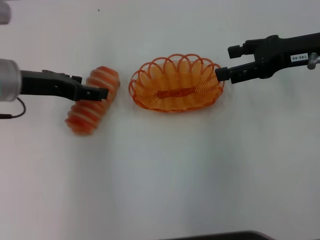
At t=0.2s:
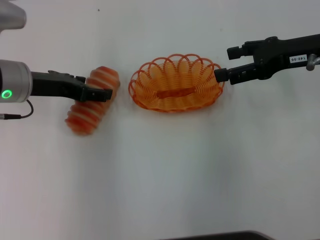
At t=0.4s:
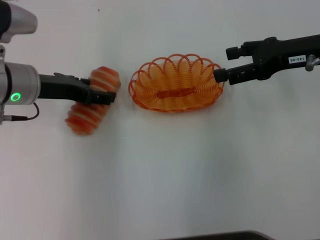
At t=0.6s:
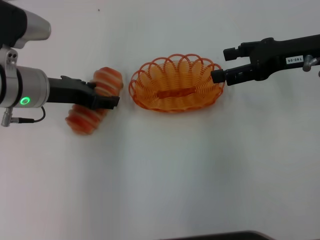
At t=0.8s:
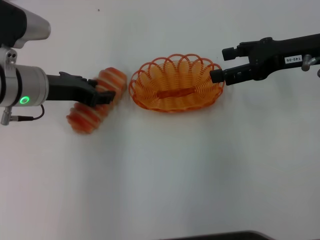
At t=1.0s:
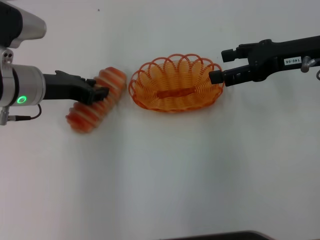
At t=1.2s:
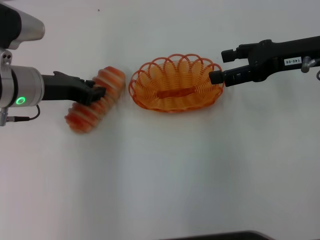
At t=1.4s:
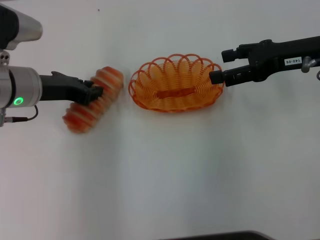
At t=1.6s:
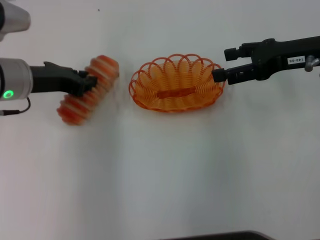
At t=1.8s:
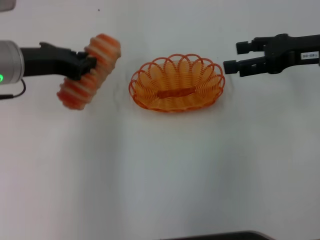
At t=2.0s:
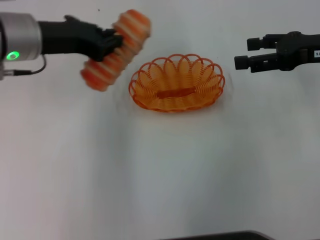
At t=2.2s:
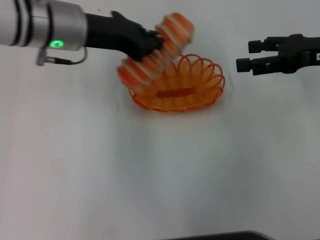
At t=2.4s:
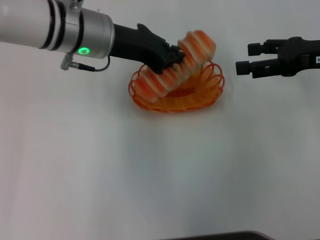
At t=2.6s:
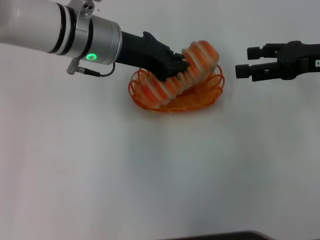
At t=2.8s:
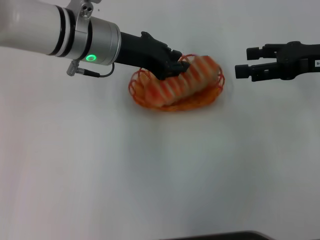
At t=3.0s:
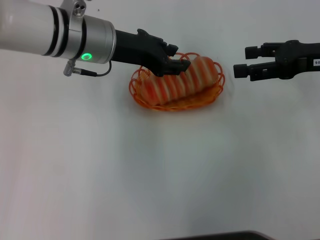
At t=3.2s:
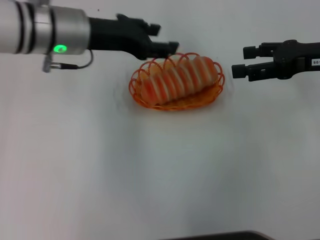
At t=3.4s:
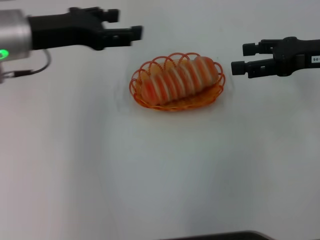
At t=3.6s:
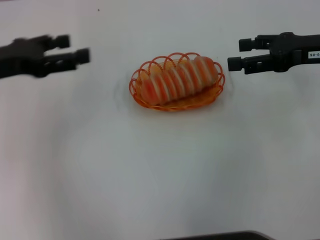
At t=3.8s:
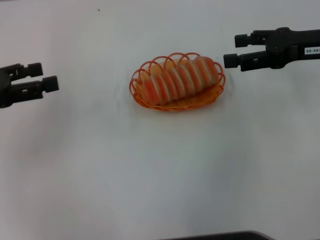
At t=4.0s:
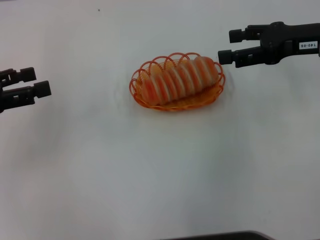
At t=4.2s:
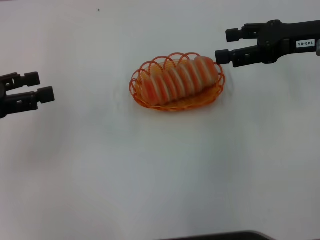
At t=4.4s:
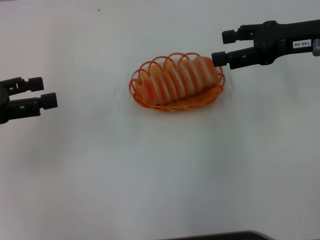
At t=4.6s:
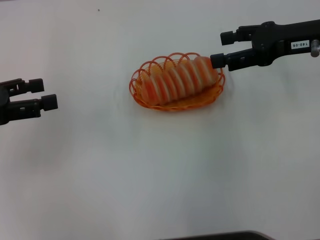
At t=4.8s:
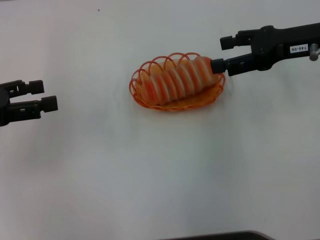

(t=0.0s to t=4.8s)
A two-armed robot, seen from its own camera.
Step, t=0.0s - t=1.8s: Pick up the long bread with the left gripper.
Step, t=2.0s - t=3.0s: Place the long bread into the basket with the left gripper.
t=0.0s - t=1.6s: The left gripper closes up.
t=1.6s - t=3.2s: The left gripper shifts approximately 5 cm to the right.
t=3.2s - t=4.8s: The left gripper shifts about 20 cm to the left and backward, and opens up.

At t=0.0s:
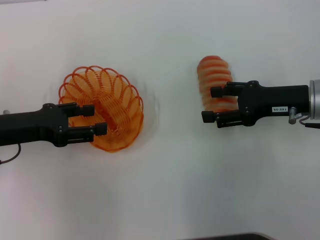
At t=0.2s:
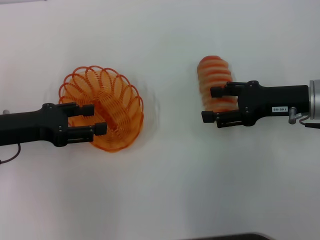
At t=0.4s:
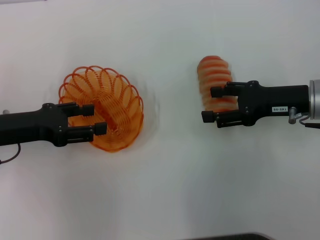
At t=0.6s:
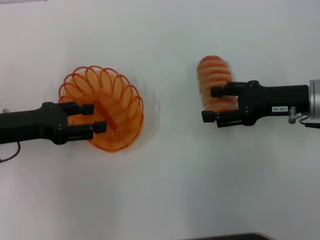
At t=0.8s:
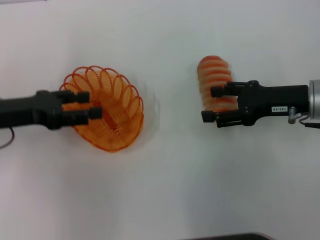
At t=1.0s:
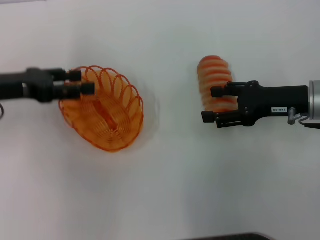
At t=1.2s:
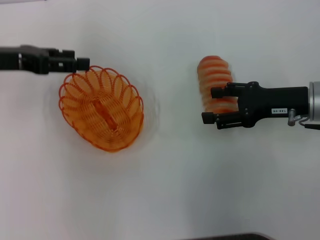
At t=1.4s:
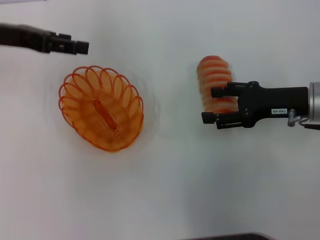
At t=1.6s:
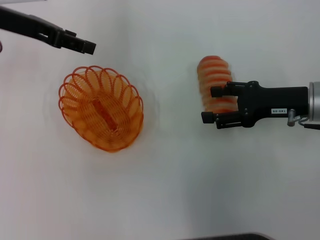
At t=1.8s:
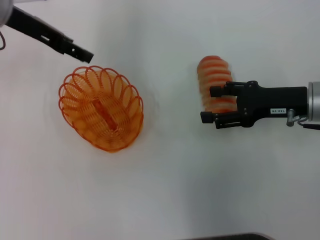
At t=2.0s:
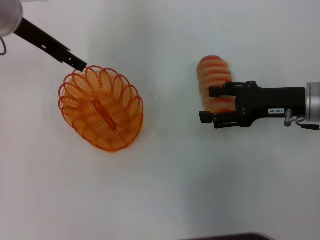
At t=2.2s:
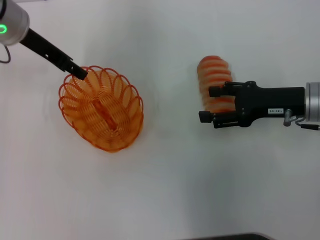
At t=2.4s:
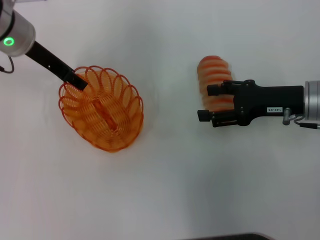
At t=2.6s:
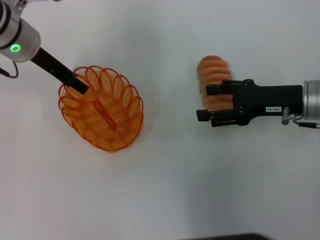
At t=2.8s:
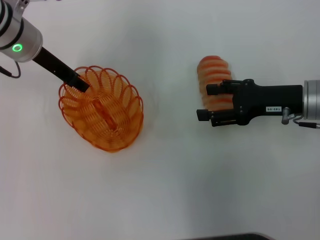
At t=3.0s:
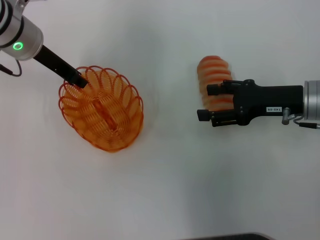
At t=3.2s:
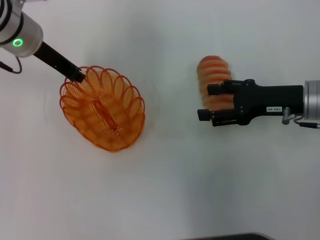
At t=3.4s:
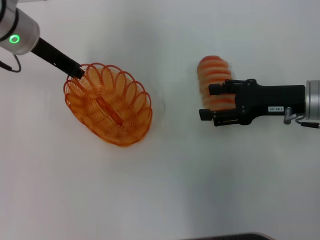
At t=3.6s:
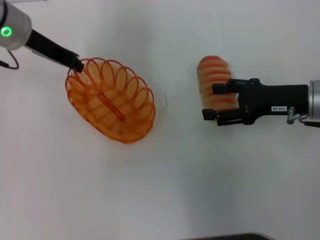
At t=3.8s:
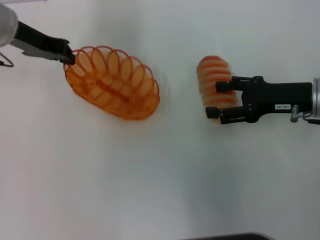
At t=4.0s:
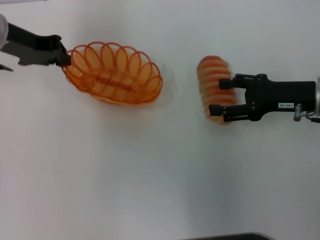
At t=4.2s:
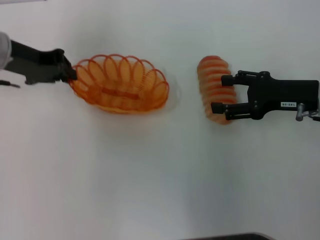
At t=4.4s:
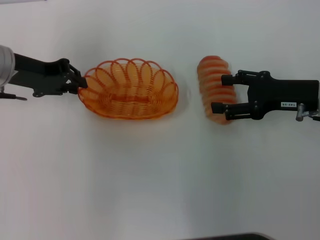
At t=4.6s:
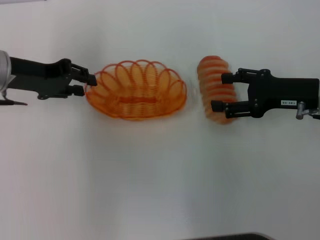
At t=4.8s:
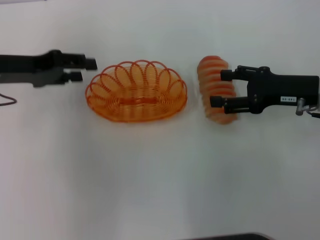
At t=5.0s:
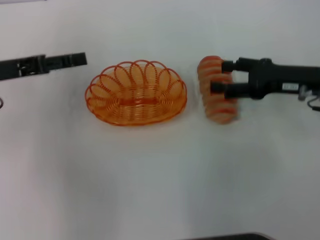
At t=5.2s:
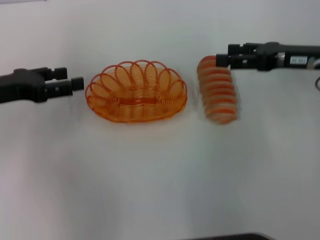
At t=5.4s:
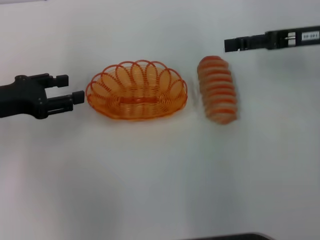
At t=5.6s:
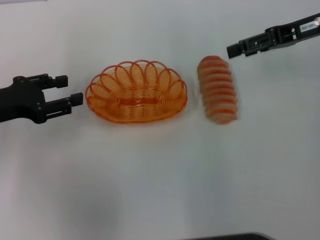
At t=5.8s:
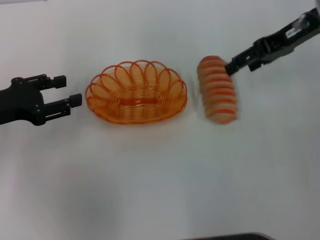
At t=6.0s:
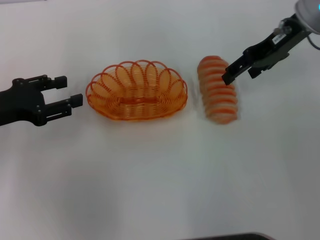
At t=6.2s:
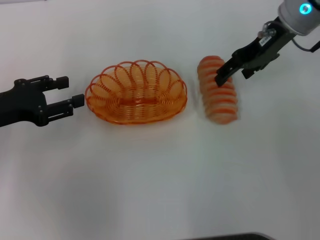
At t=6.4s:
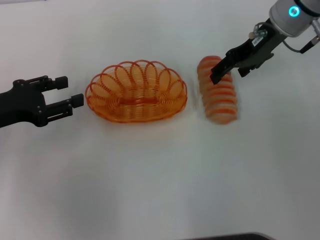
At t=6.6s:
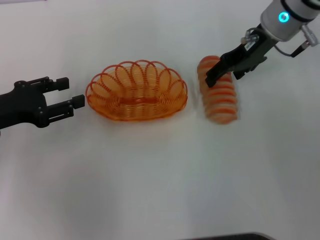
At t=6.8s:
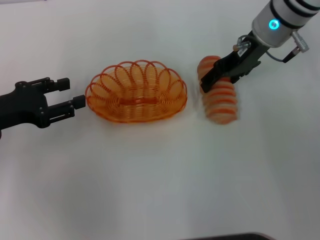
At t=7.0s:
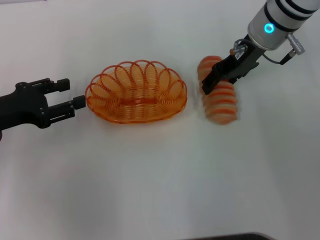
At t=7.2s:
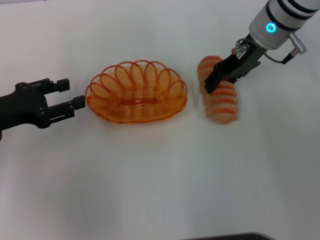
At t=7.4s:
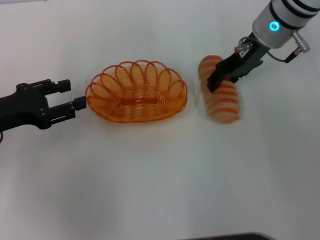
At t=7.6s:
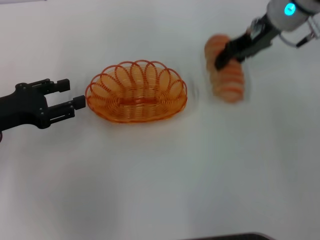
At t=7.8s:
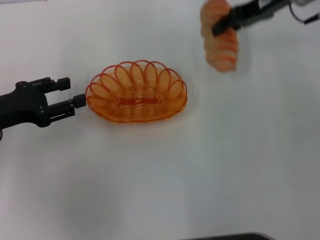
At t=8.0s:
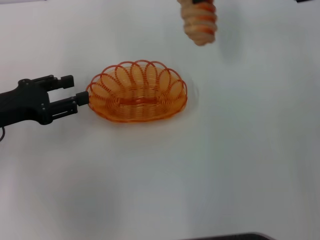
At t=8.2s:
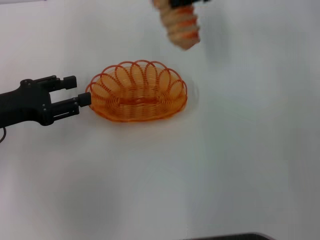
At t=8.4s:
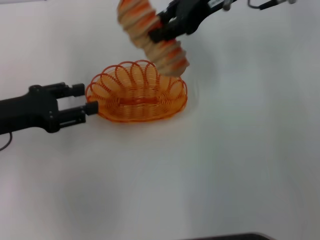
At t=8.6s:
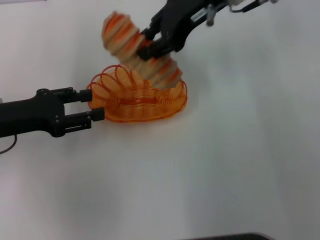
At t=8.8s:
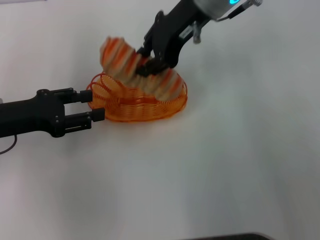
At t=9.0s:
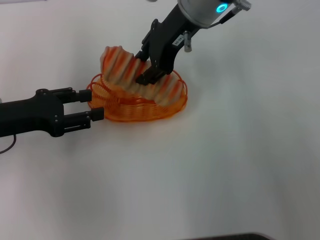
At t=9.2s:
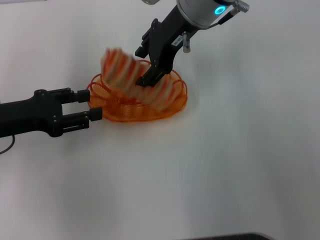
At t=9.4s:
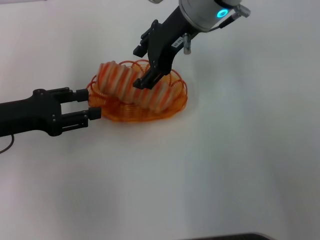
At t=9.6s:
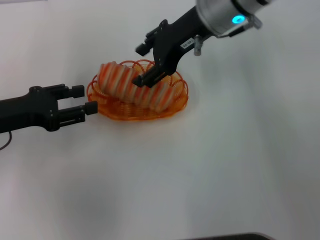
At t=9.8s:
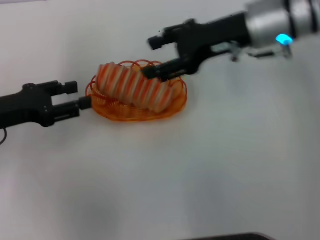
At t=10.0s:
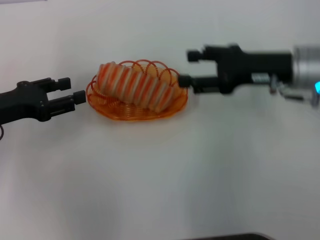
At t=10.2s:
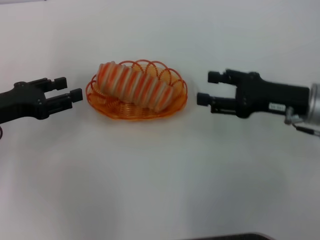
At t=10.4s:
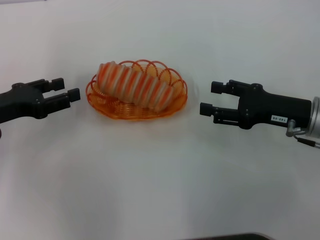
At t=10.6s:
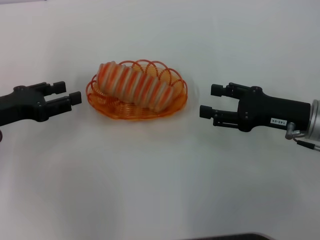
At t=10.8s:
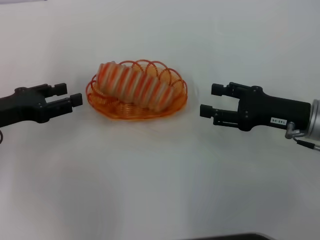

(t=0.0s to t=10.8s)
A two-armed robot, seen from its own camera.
Step, t=0.0s - t=3.4s: Pick up the basket with the left gripper.
Step, t=3.6s - t=4.8s: Place the basket in the center of view with the left gripper.
Step, t=5.0s - t=7.4s: Pick up the long bread with the right gripper.
Step, t=7.6s - t=10.0s: Place the long bread into the basket with the right gripper.
t=0.0s - t=1.6s: The left gripper travels forward and upward by approximately 15 cm.
t=1.6s - t=3.0s: The left gripper heads downward and to the right, covering some 5 cm.
t=3.0s - t=4.6s: The left gripper shifts approximately 10 cm to the left and backward, and closes up.
t=4.6s - t=6.2s: The right gripper goes about 15 cm forward, upward and to the left; the left gripper shifts approximately 5 cm backward, and opens up.
t=6.2s - t=7.8s: The right gripper closes its fingers.
t=7.8s - t=9.2s: The right gripper shifts some 15 cm to the left.
t=9.2s - t=10.8s: The right gripper heads to the right, downward and backward, covering roughly 30 cm, and opens.
